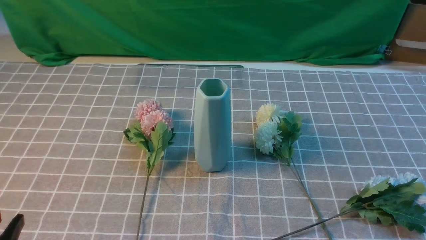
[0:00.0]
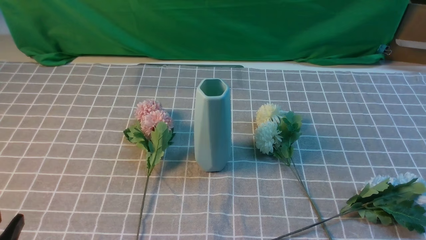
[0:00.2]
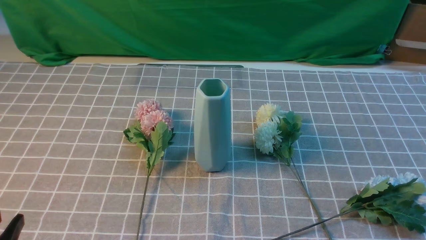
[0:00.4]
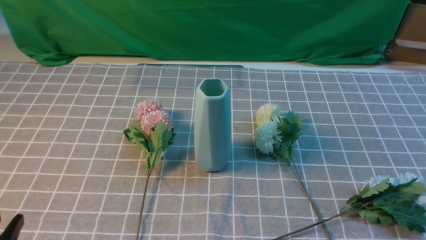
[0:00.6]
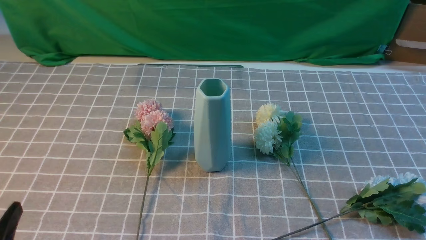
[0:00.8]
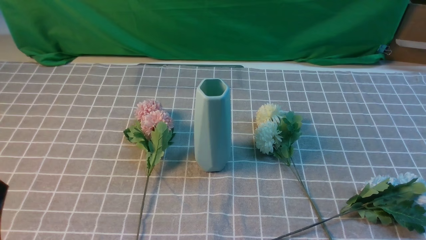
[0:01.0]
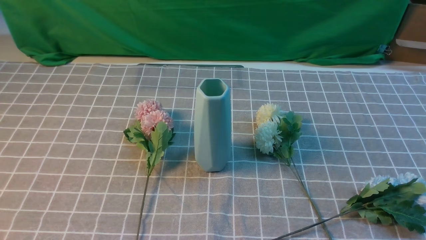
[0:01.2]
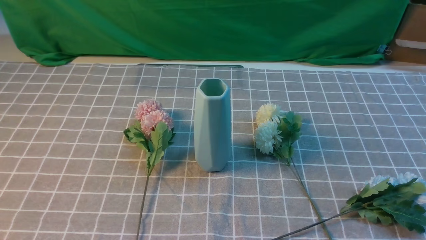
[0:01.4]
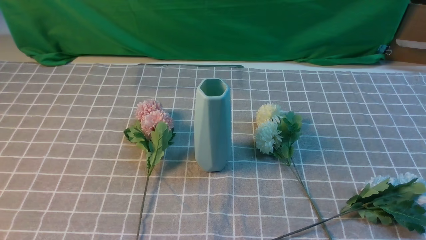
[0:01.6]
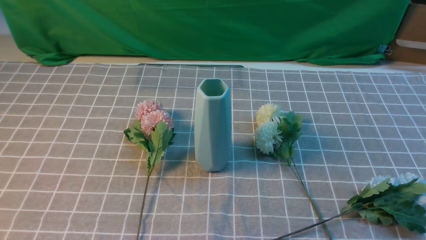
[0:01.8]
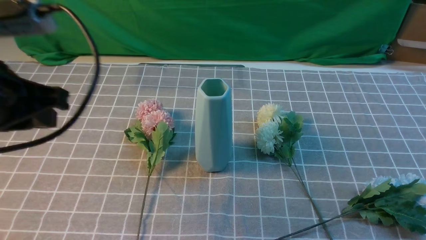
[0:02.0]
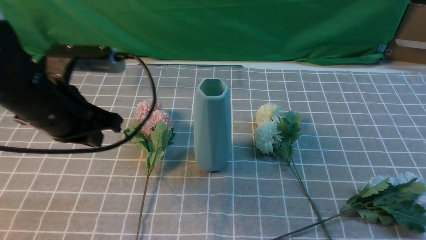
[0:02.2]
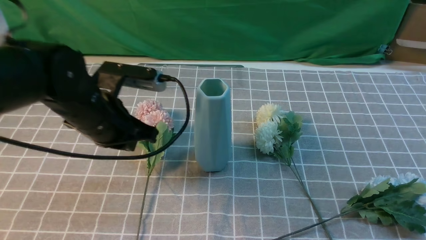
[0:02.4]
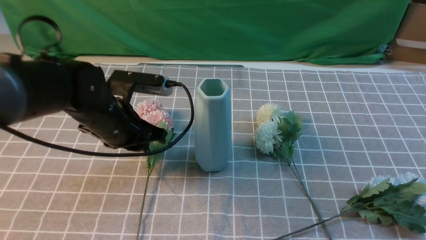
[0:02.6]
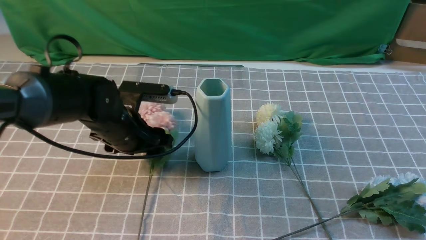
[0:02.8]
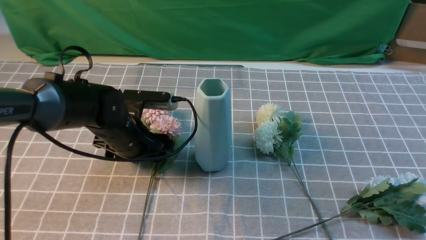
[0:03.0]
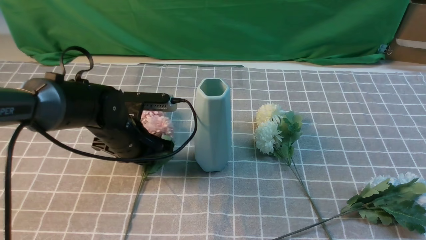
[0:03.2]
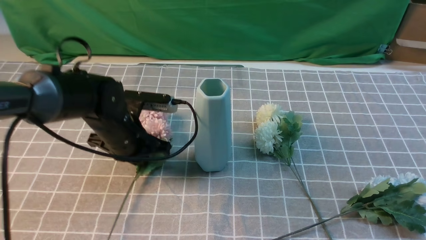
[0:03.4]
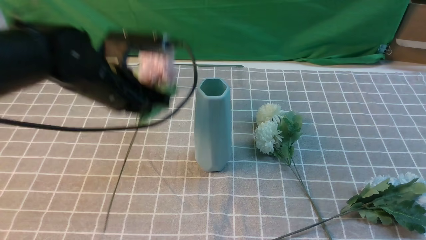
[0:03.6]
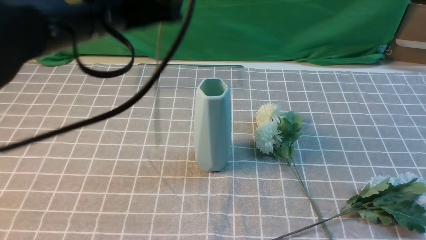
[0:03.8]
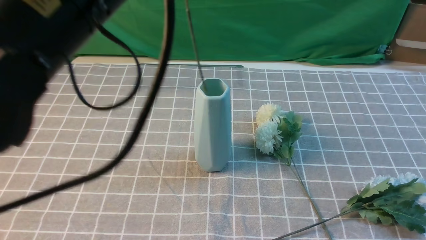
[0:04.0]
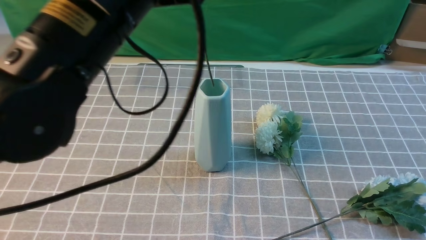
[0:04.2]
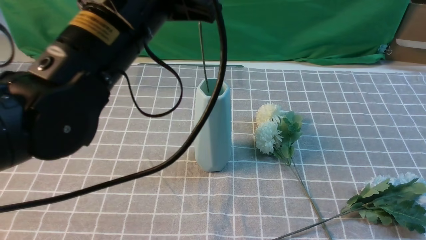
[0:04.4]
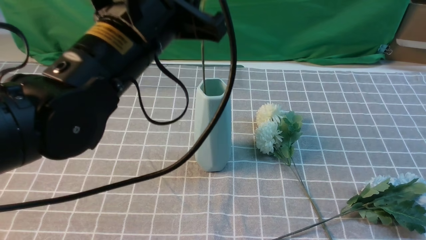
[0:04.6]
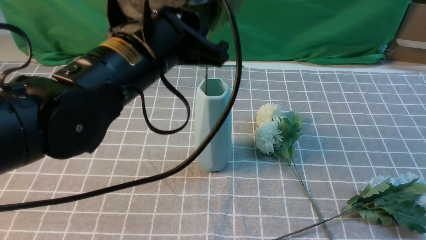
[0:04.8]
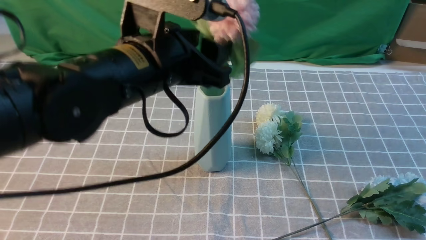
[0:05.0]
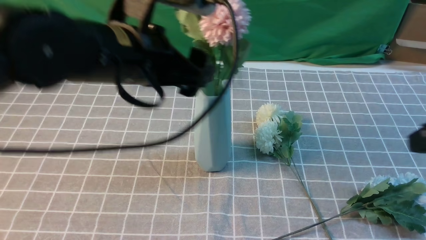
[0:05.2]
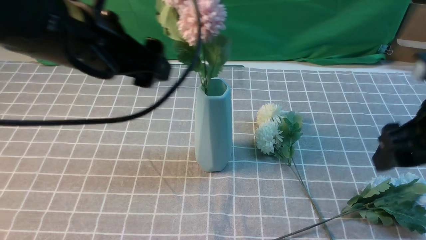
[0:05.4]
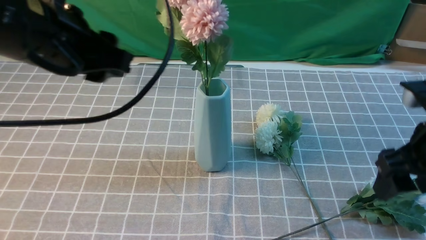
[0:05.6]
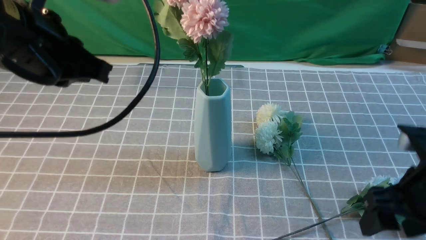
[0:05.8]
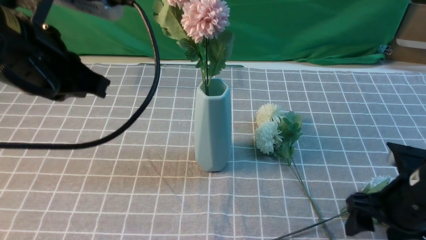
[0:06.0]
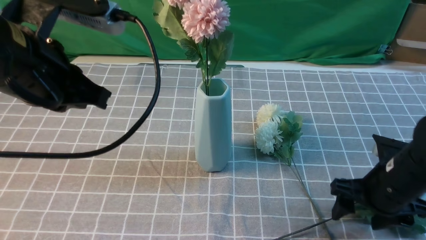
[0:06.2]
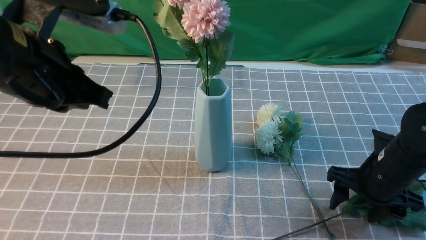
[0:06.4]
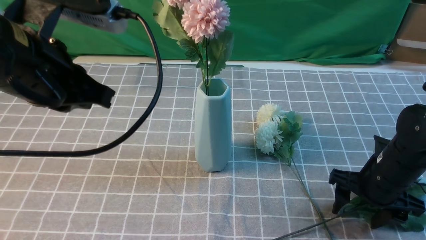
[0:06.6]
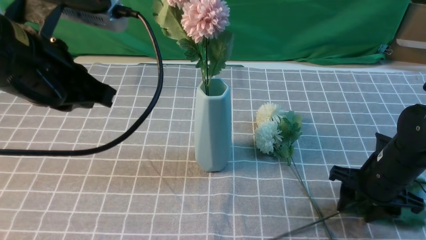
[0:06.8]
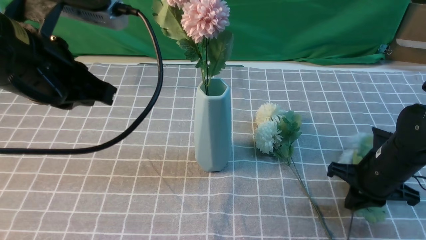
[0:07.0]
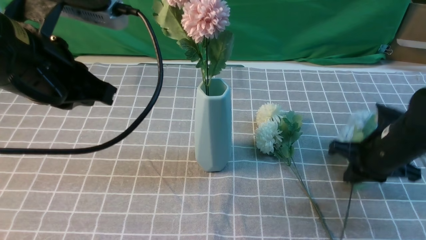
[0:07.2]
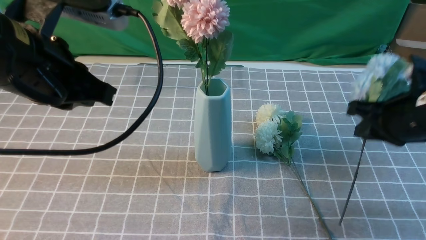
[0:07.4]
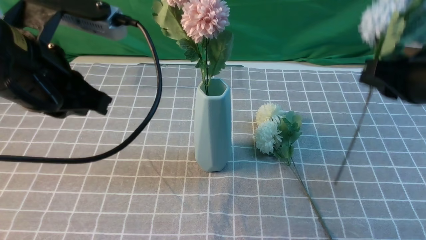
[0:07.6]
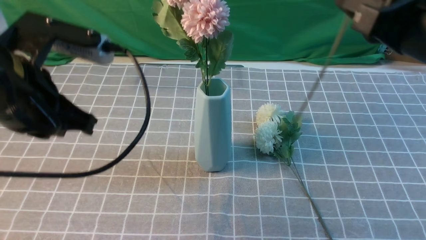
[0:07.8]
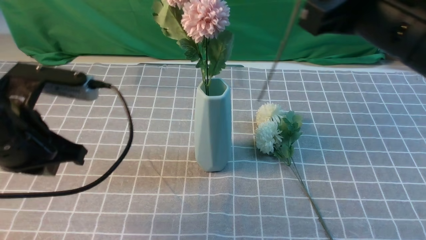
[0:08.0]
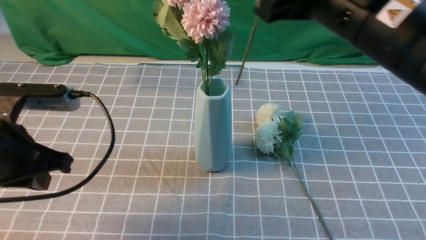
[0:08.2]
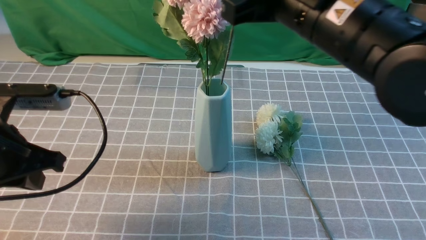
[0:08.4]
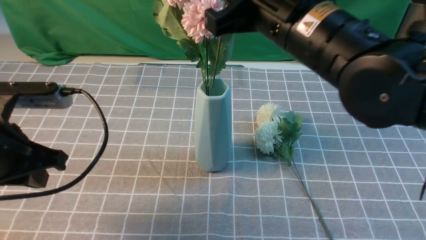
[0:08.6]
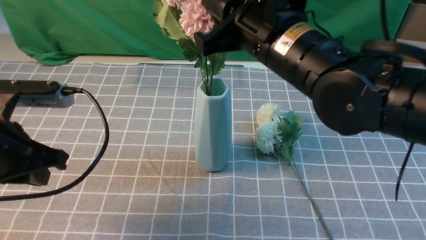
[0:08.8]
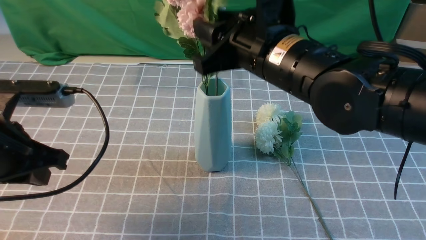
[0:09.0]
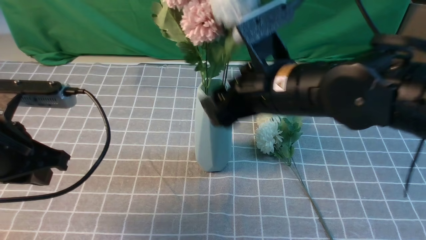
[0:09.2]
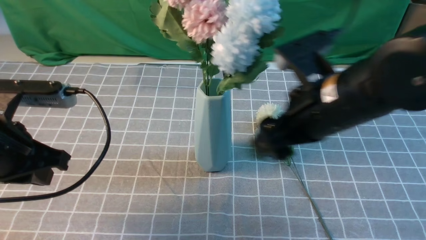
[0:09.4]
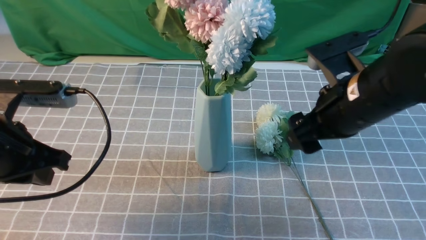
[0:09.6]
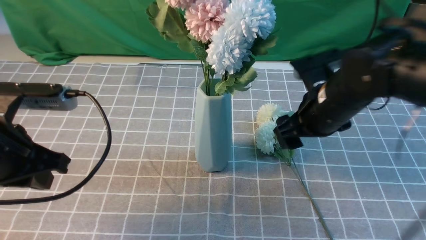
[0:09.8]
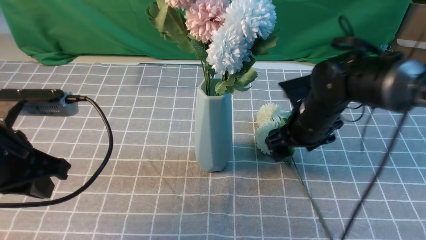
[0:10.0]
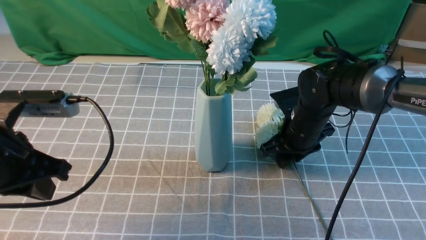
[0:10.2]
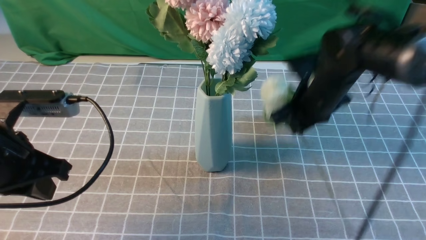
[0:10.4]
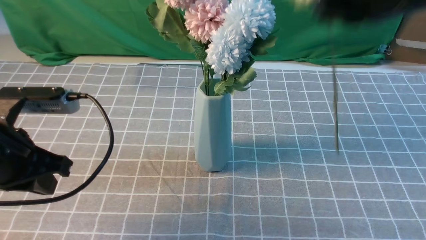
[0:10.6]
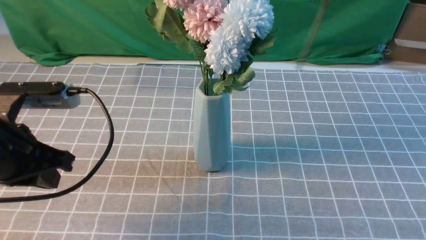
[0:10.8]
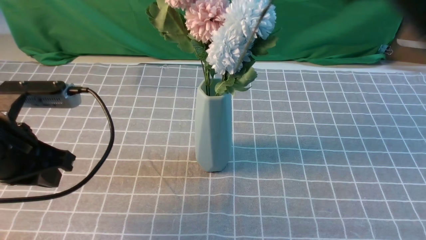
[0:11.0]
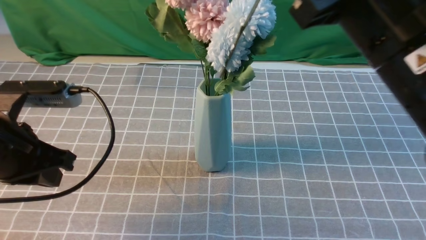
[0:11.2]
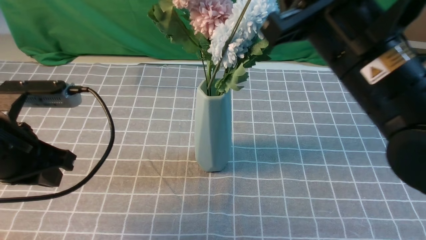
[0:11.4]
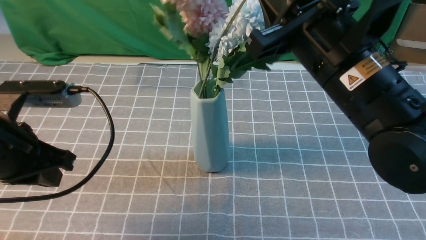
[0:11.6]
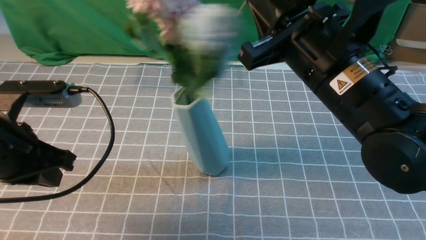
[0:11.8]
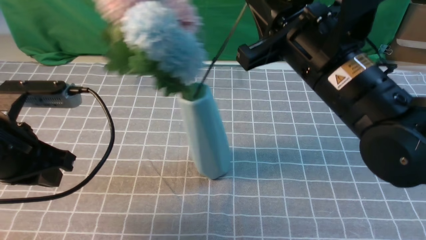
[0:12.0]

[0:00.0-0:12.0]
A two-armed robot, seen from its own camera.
Task of the whole recording: insert the flowers into the vase on the table with the grey tablecloth.
Step, 0:00.0 to 0:03.4: use the left arm to grab a bunch of fresh flowers.
Step, 0:03.6 to 0:05.4: use the left arm to insert the flowers into the vase.
Step, 0:05.6 to 0:07.0: use the right arm to grab a bunch of fresh flowers.
Step, 0:07.2 to 0:09.2: use the right arm to insert the flowers into the vase.
Step, 0:09.4 to 0:10.2: use the right arm to grab a bunch of fresh flowers.
0:01.6 to 0:03.0: The right gripper goes approximately 15 cm upward and forward; the left gripper goes roughly 35 cm forward and downward, and opens.
0:03.0 to 0:04.4: The left gripper is displaced upward and backward by some 25 cm, and closes its fingers.
0:04.4 to 0:06.0: The left gripper shifts approximately 10 cm to the left, and opens and closes again. Meanwhile the right gripper heads downward and forward, covering approximately 20 cm, and opens up.
0:06.0 to 0:07.6: The right gripper goes about 15 cm upward, and closes up.
0:07.6 to 0:09.0: The right gripper travels to the left by some 15 cm, and opens. Meanwhile the left gripper heads downward and to the left, covering roughly 10 cm.
0:09.0 to 0:10.4: The right gripper heads to the right and forward, covering roughly 10 cm, goes downward and returns, some 15 cm each way, and closes.
0:10.4 to 0:12.0: The right gripper goes about 10 cm backward, and moves roughly 15 cm upward and comes back.

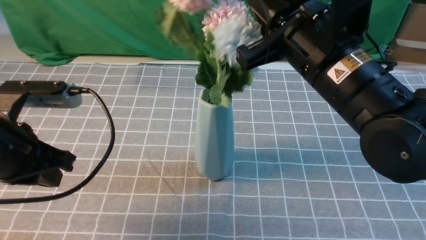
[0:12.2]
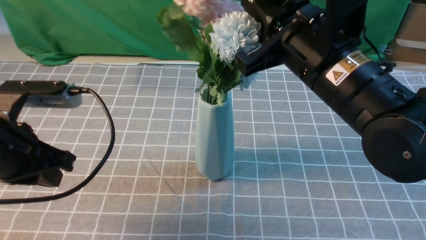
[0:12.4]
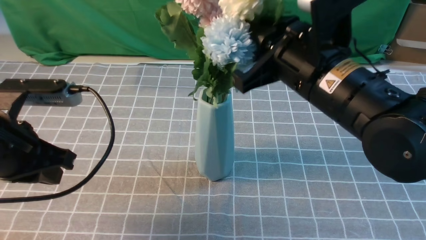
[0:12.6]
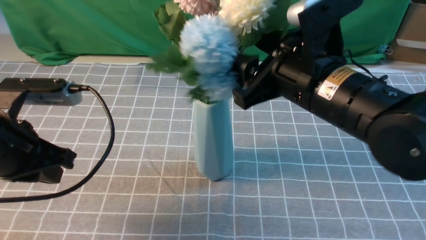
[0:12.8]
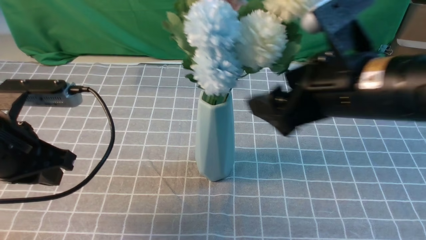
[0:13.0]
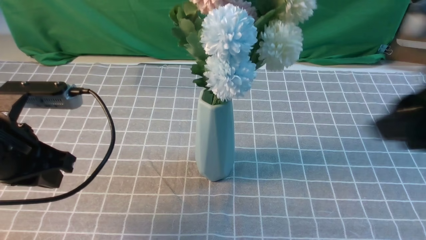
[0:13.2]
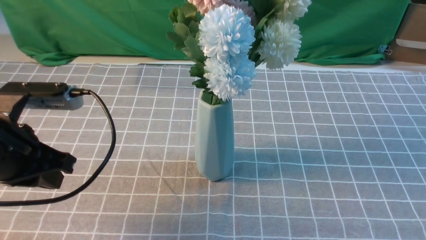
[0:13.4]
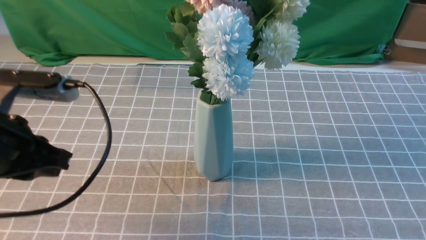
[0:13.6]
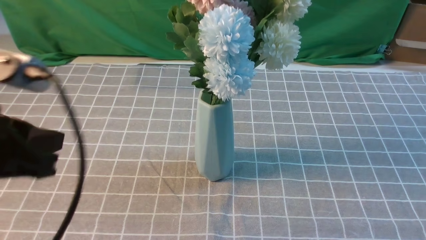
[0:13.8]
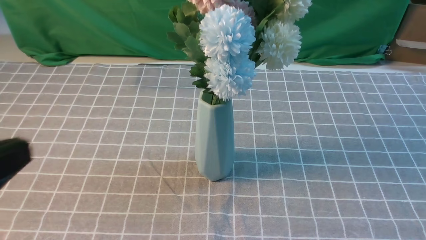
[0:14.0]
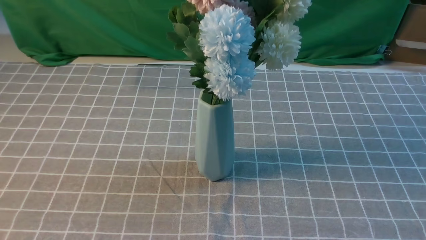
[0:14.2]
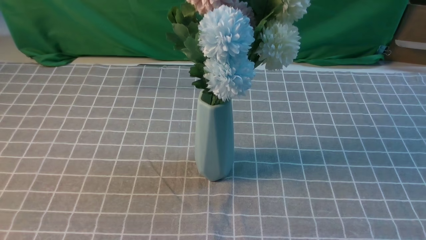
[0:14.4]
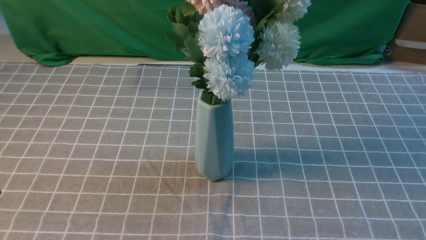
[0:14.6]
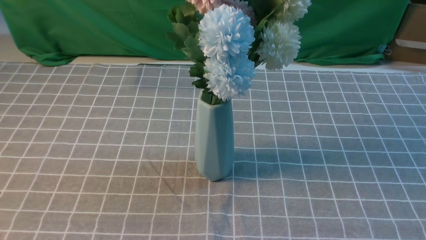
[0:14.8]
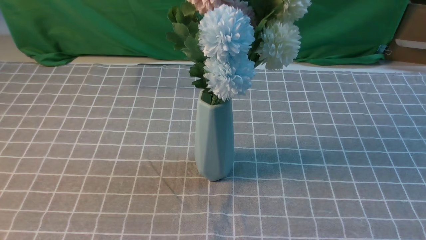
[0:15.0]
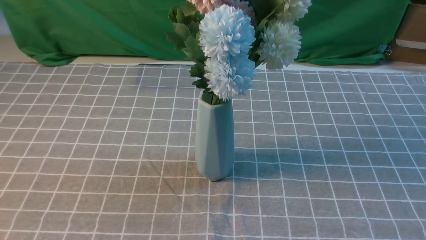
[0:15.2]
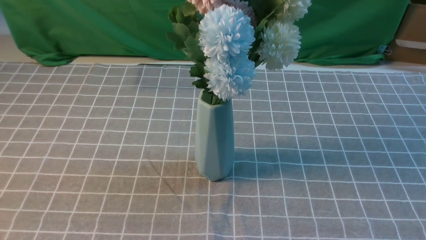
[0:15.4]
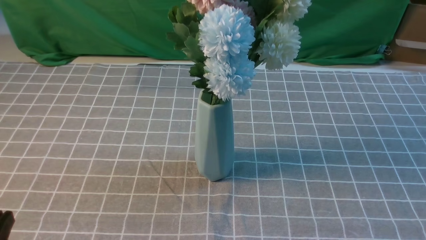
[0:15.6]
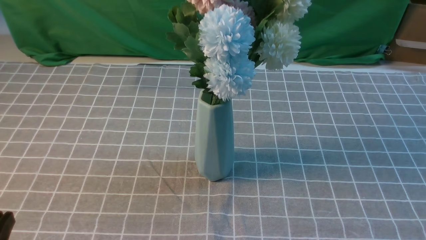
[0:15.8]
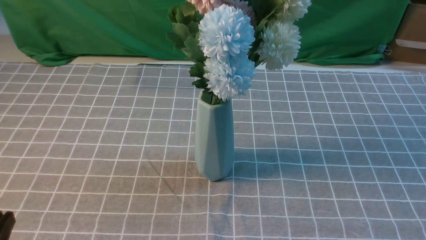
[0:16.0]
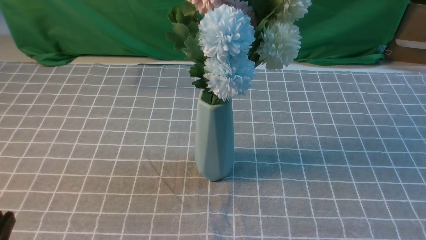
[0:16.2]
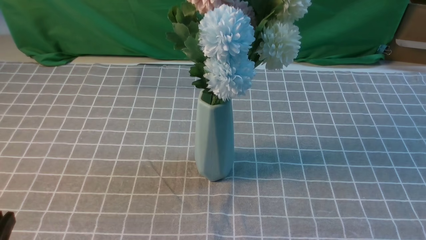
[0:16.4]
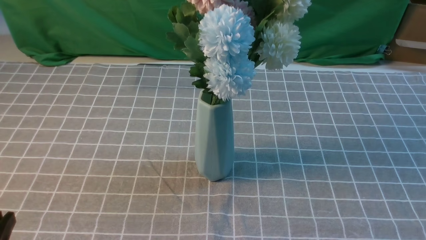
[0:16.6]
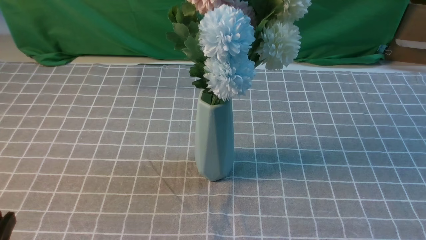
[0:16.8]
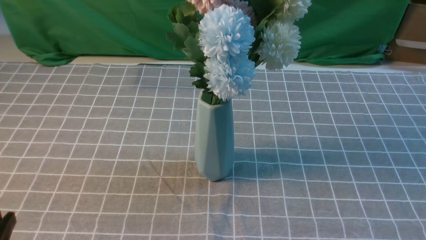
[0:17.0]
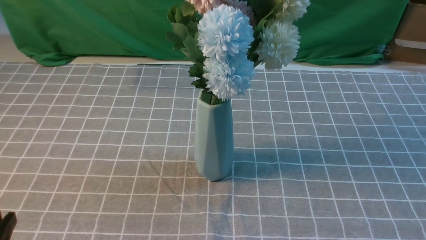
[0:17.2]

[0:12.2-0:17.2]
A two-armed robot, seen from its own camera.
Task of the whole recording: insert the flowers into the vase on the table with the grey tablecloth.
0:12.2 to 0:13.8: The left gripper travels backward and upward by some 10 cm, while the right gripper heads backward and to the right, covering some 35 cm, and opens and closes again.
0:13.8 to 0:15.6: The left gripper shifts about 15 cm downward and backward. Meanwhile the right gripper shifts some 5 cm downward.
